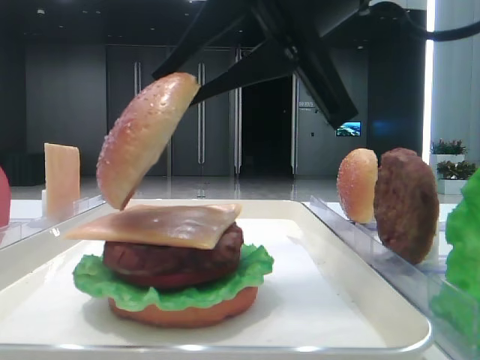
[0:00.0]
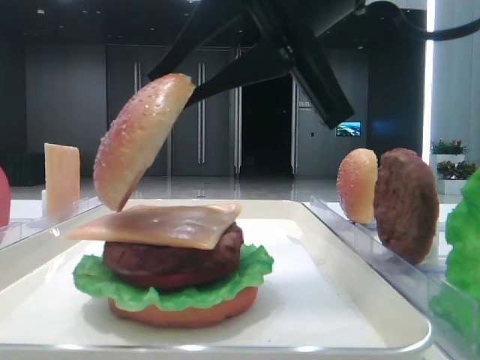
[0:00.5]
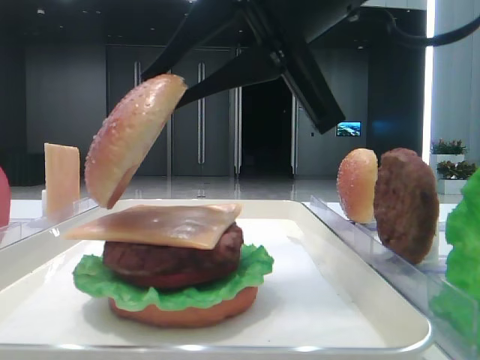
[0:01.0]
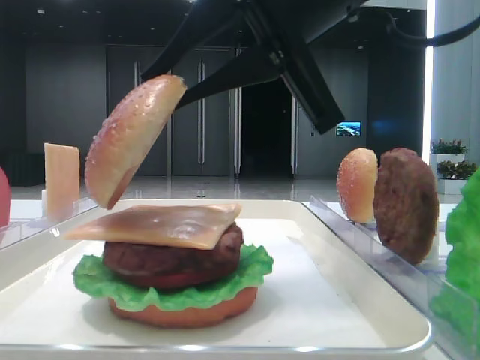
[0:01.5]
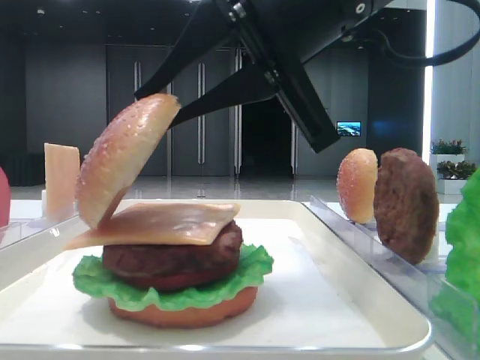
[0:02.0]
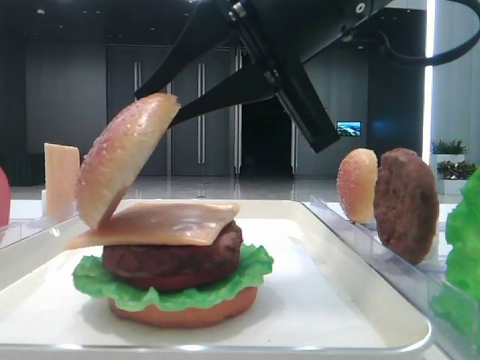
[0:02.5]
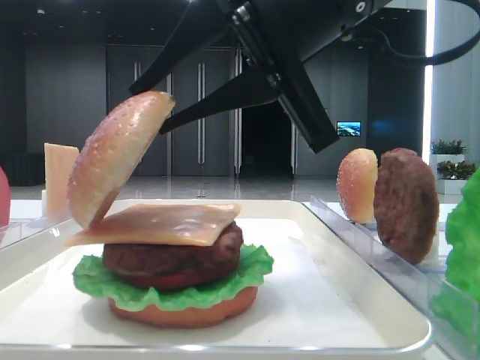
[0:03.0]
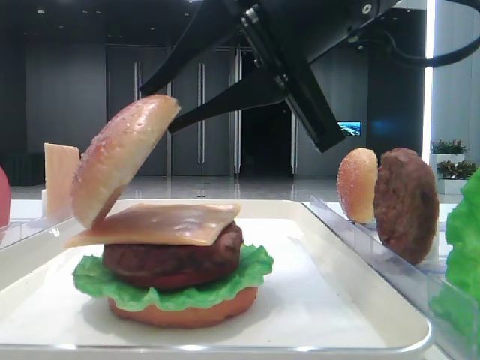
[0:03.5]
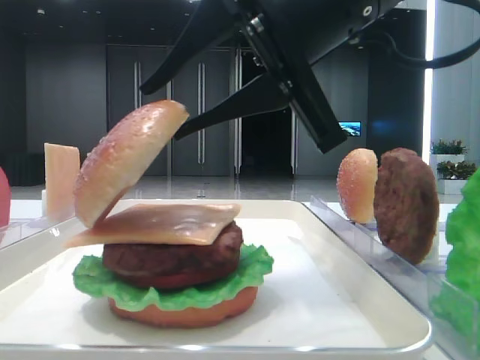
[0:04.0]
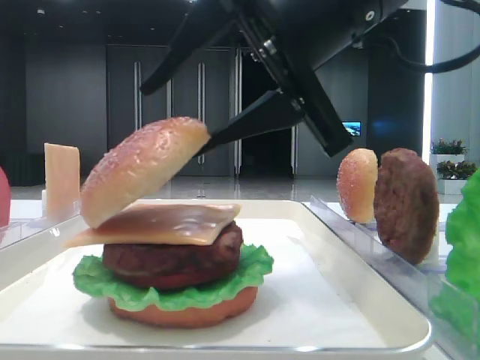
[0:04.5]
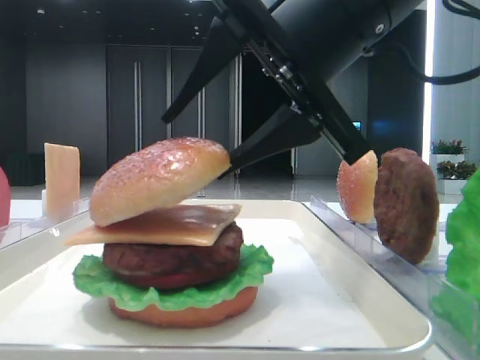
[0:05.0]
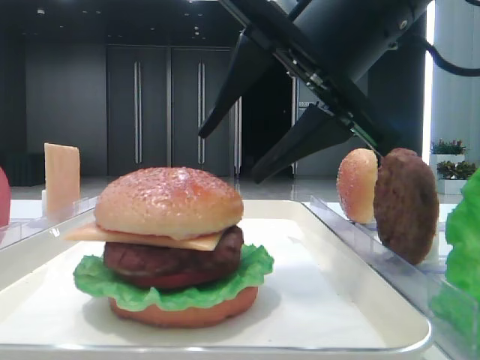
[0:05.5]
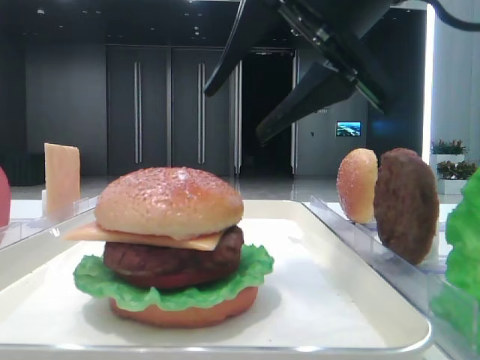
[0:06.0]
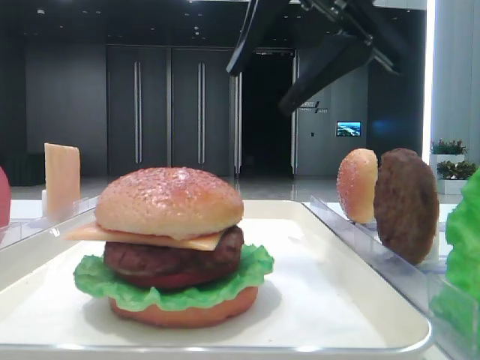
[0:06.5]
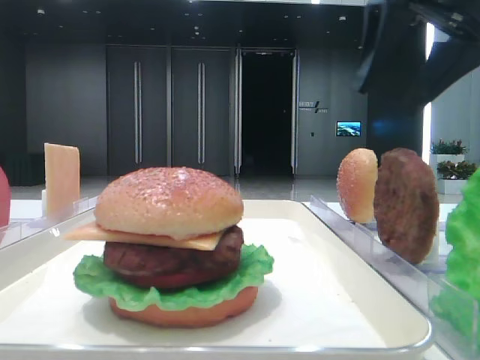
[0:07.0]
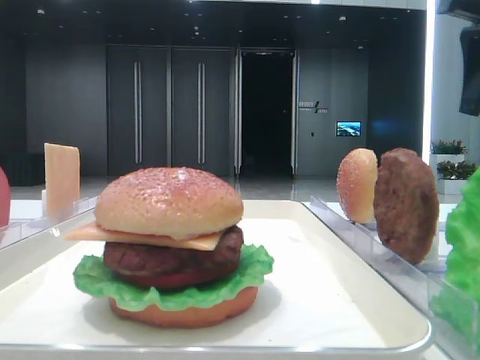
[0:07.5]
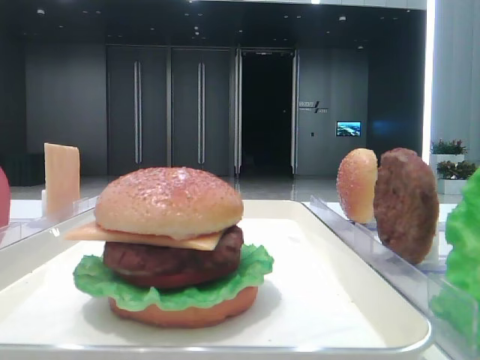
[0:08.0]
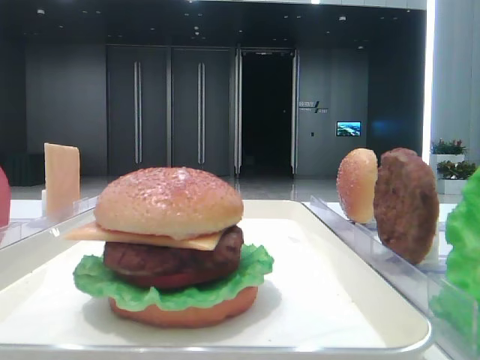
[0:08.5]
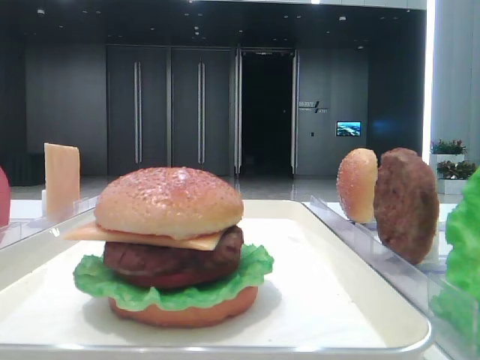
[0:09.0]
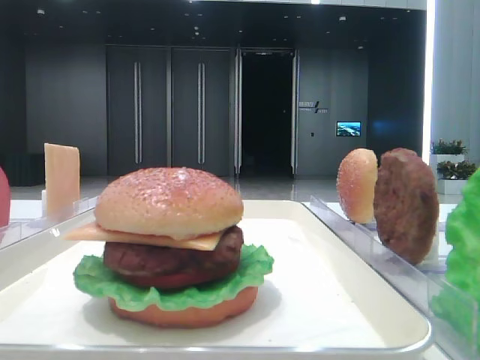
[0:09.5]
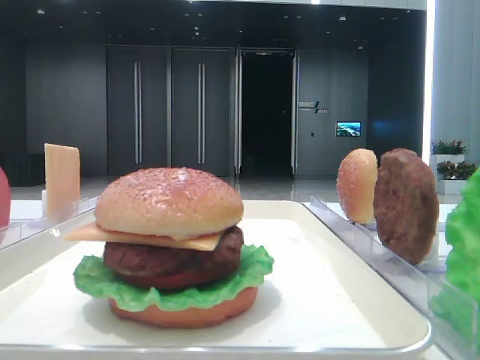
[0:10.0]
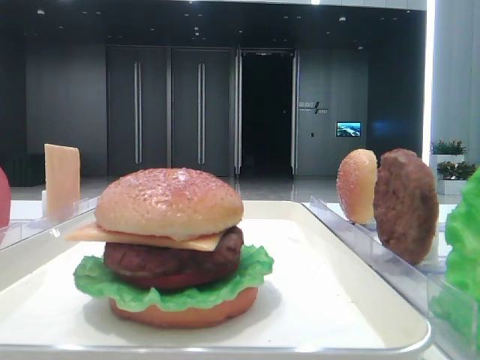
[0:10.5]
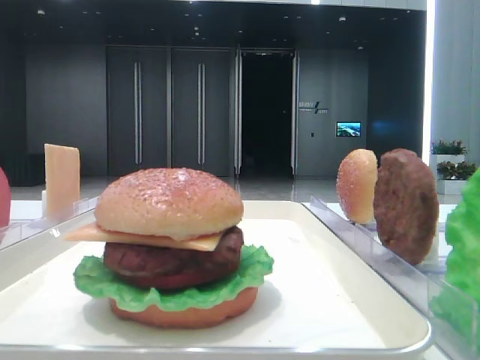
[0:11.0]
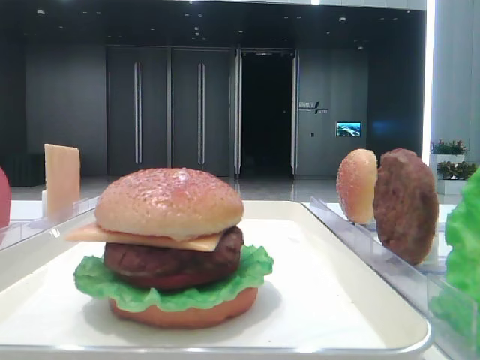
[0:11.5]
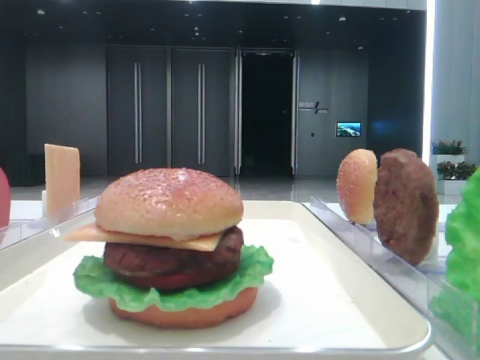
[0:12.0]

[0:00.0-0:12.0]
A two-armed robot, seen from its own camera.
Step, 0:00.0 to 0:05.0: Place the top bread slice on the cheese with the right hand.
0:00.0 to 0:02.0: The grippers move only a little.
0:02.0 to 0:04.0: The right gripper opens up.
0:04.0 to 0:06.0: The right gripper opens its fingers.
0:06.0 to 0:08.0: The right gripper heads to the right, covering about 20 cm.

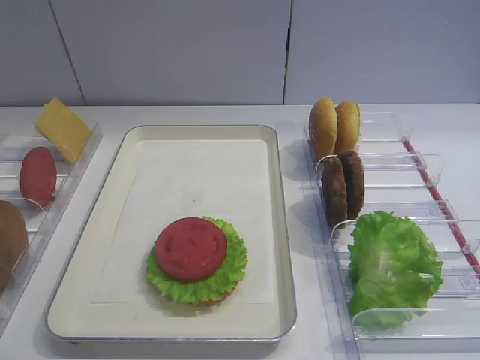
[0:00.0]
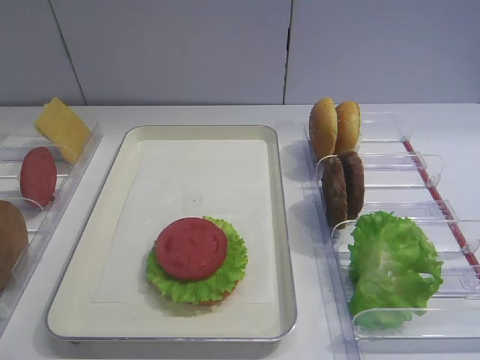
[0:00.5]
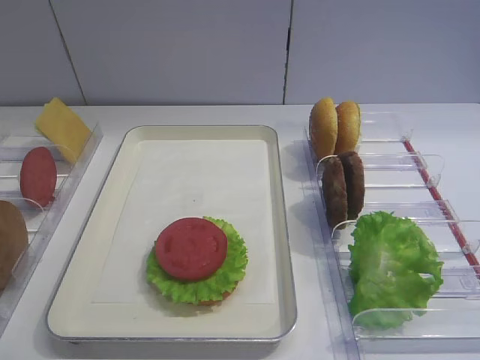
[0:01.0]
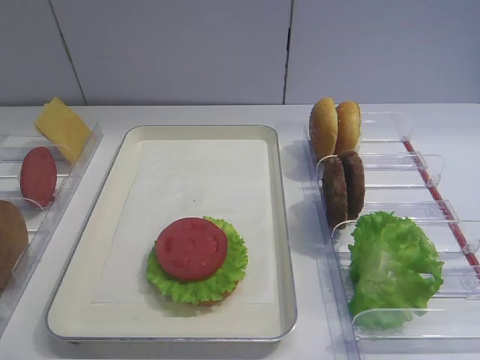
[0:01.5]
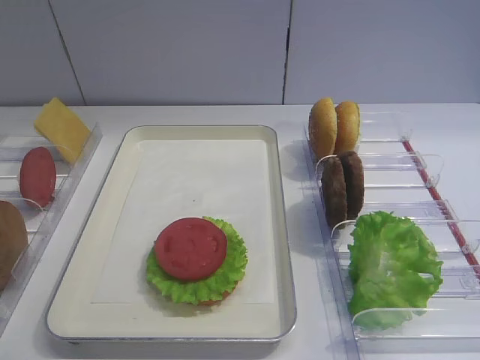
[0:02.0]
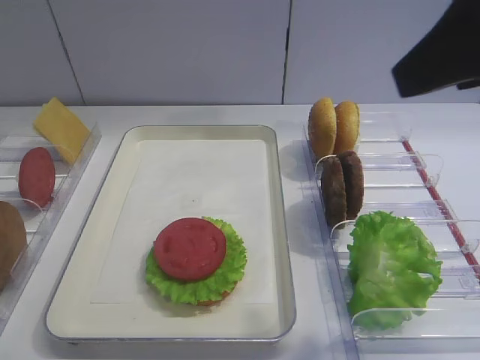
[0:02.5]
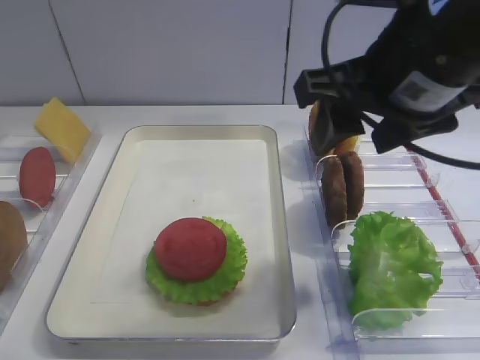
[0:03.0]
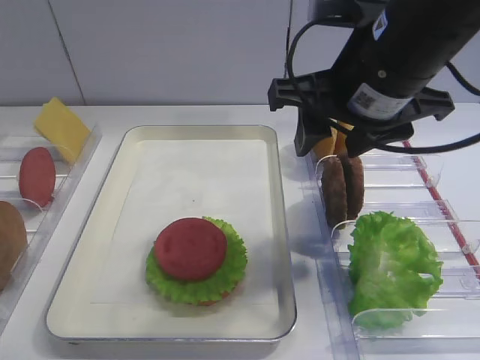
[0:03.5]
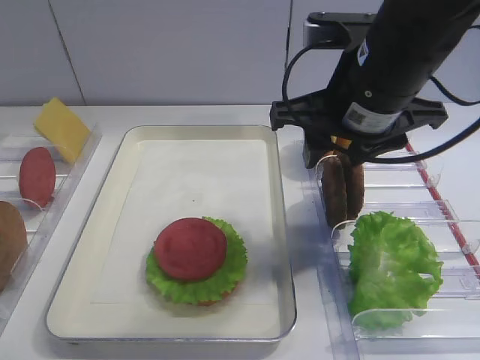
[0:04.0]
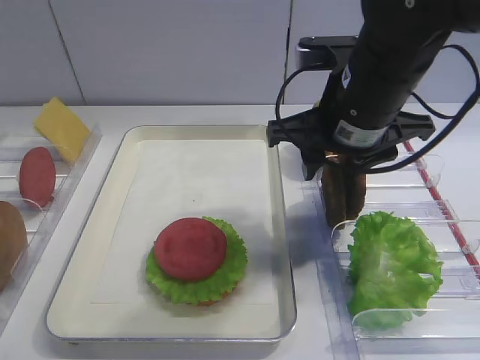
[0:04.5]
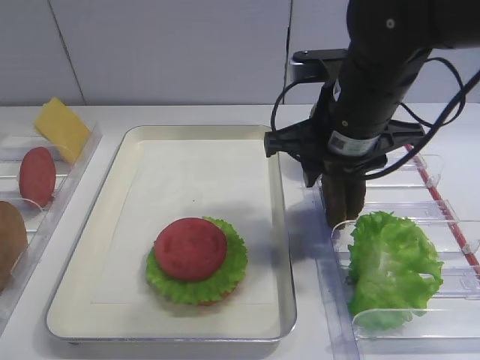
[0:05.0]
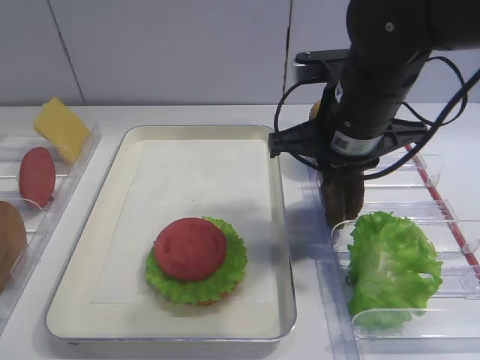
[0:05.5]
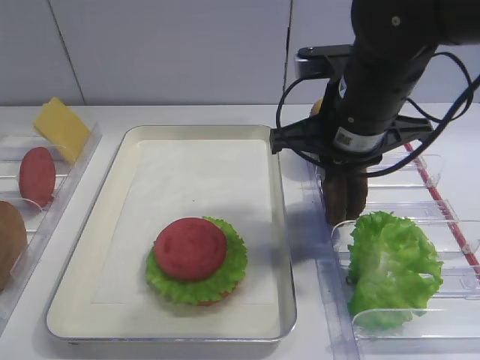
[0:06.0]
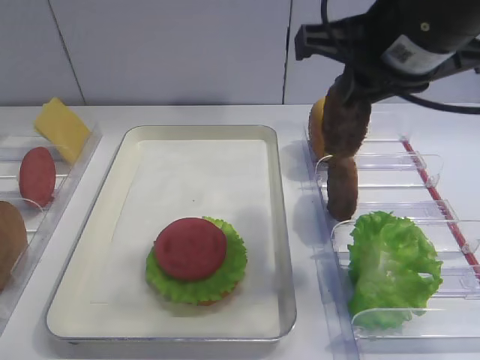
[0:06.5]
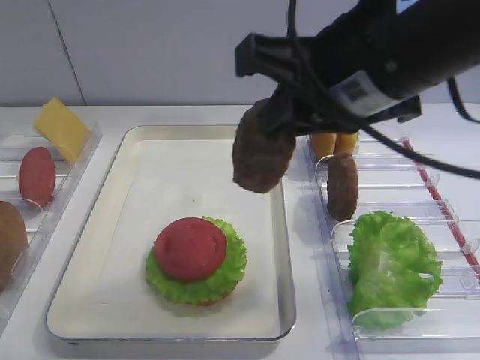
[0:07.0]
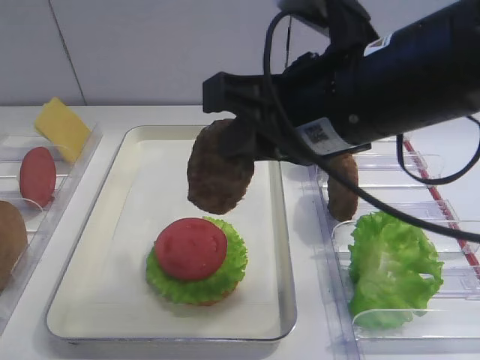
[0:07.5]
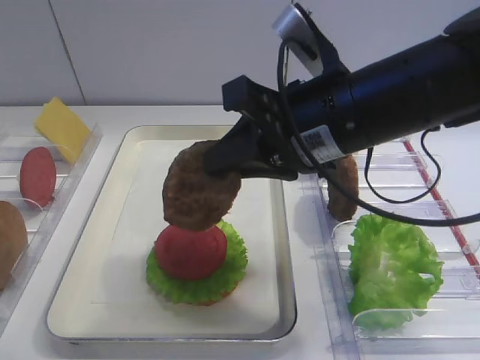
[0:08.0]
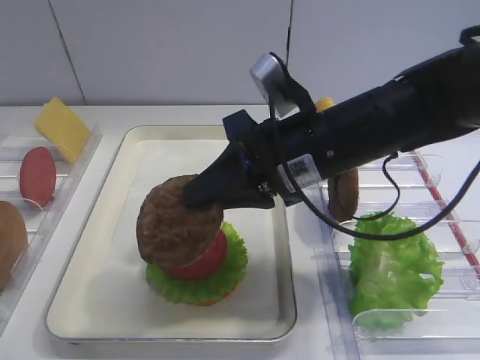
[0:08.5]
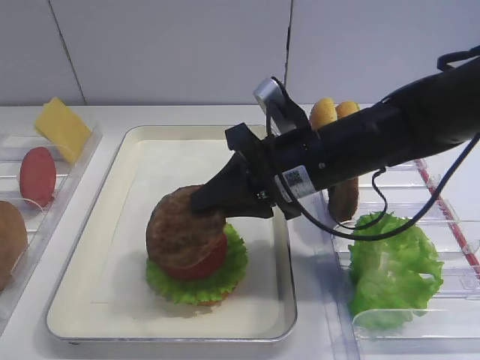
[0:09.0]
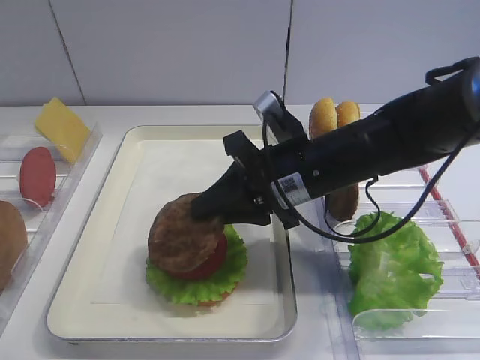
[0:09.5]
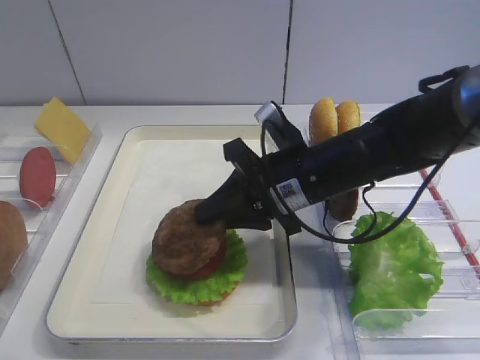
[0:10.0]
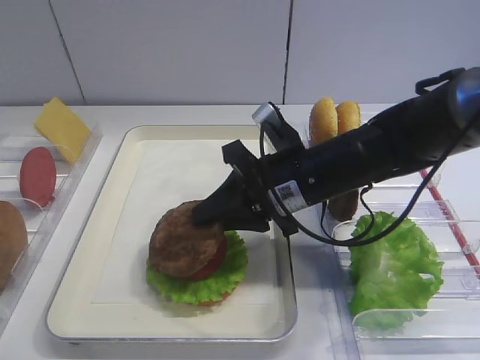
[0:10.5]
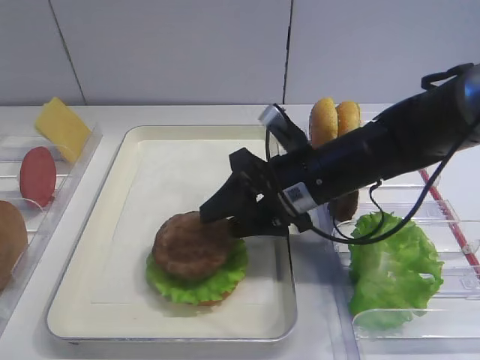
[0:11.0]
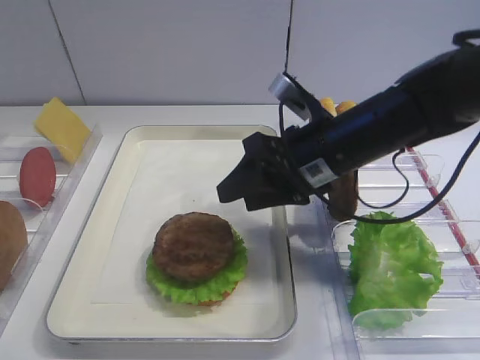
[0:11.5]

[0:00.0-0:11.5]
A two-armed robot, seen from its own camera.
Step, 0:00.0 to 0:06.0: Pick up the cutlet with the right gripper.
Step, 0:06.5 to 0:11.0: Place the cutlet on the tomato slice with the right gripper.
0:02.0 to 0:04.0: The right gripper travels forward, to the left and downward by about 25 cm.
0:04.0 to 0:06.0: The right gripper closes.
0:06.0 to 0:07.5: The right gripper moves backward, approximately 10 cm.
0:07.5 to 0:09.5: The right gripper travels downward and forward by about 15 cm.
0:09.5 to 0:11.5: The right gripper opens up.

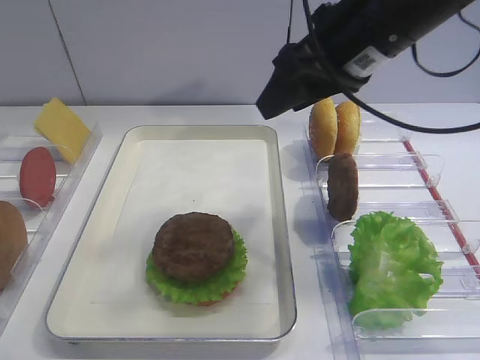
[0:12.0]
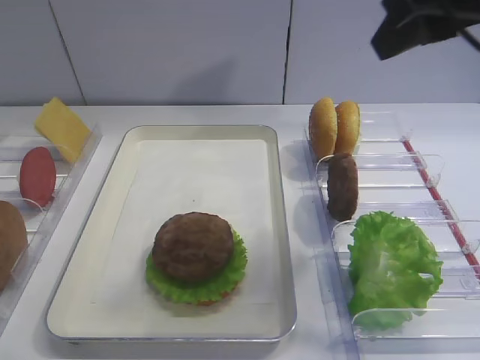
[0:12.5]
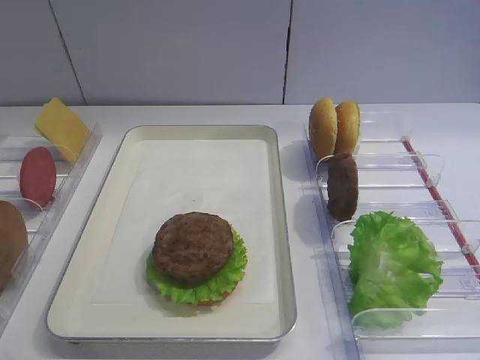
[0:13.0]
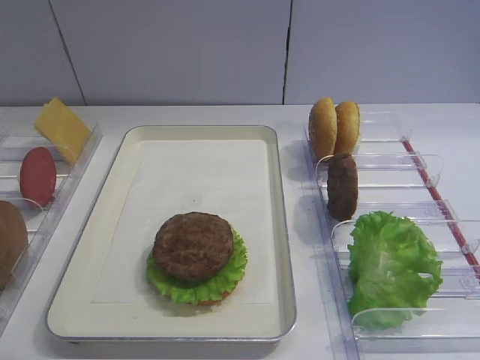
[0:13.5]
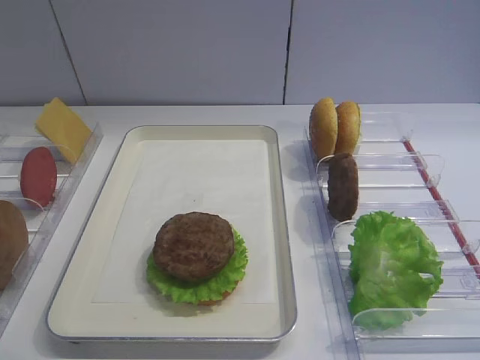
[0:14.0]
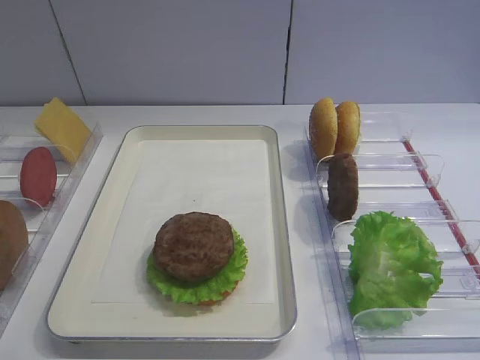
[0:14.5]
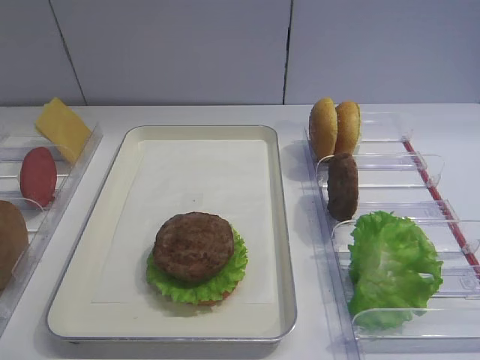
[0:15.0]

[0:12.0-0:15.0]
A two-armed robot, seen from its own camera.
0:12.0 to 0:13.5: The right gripper heads backward and to the right, covering roughly 35 cm.
